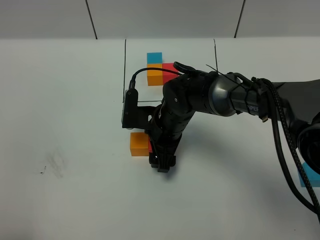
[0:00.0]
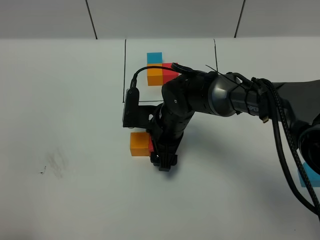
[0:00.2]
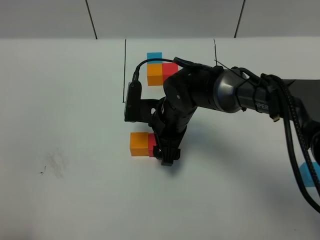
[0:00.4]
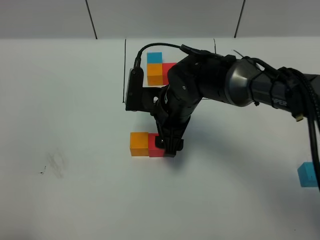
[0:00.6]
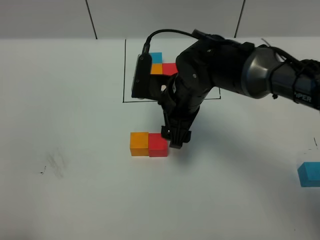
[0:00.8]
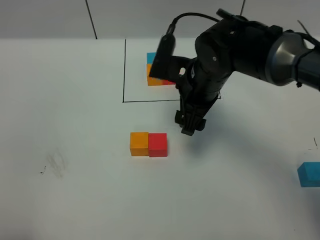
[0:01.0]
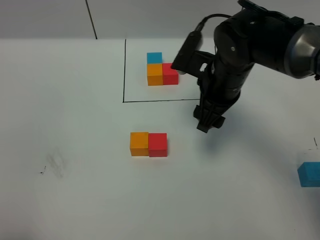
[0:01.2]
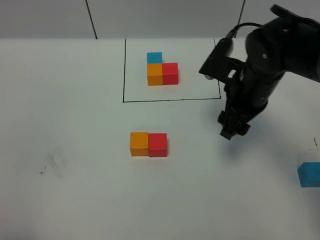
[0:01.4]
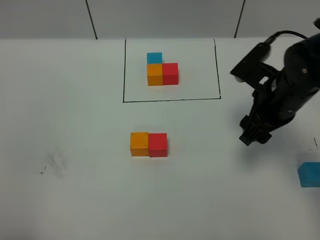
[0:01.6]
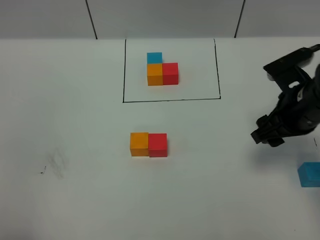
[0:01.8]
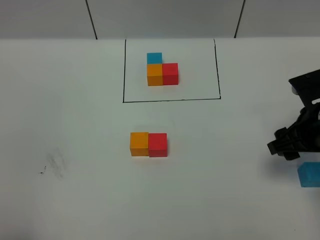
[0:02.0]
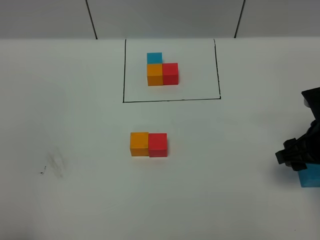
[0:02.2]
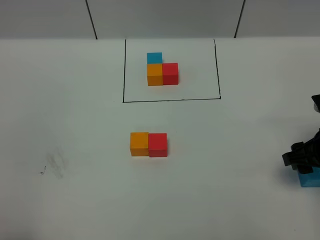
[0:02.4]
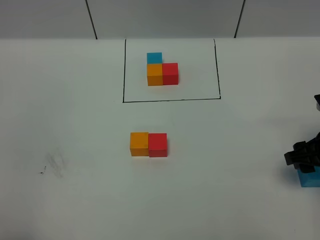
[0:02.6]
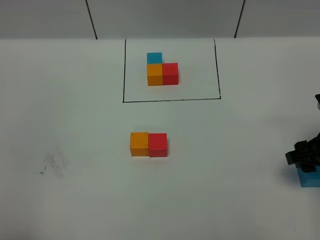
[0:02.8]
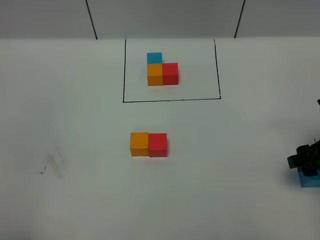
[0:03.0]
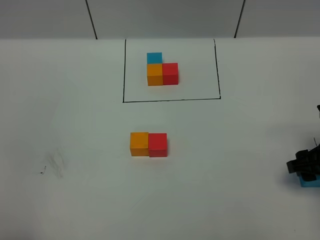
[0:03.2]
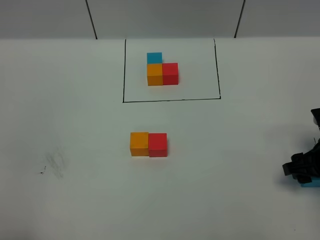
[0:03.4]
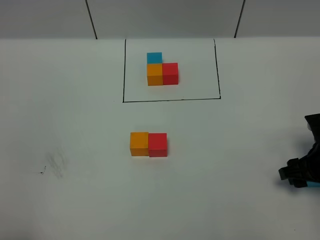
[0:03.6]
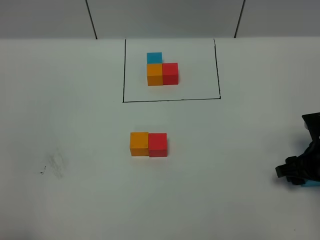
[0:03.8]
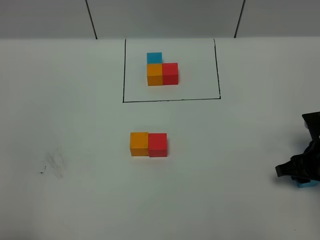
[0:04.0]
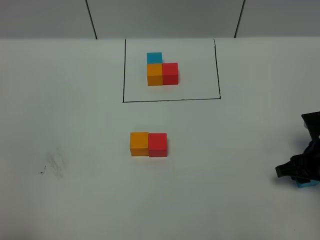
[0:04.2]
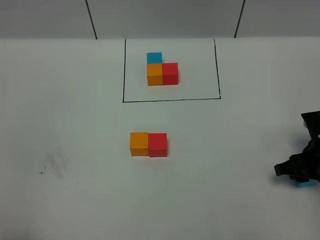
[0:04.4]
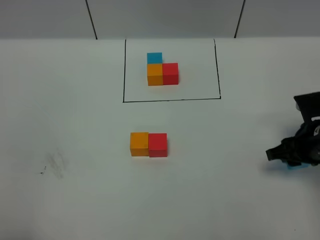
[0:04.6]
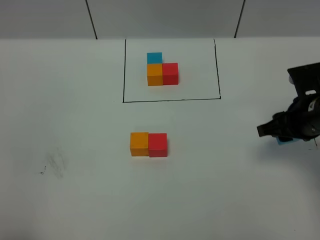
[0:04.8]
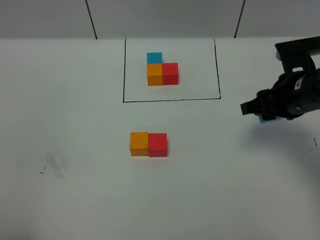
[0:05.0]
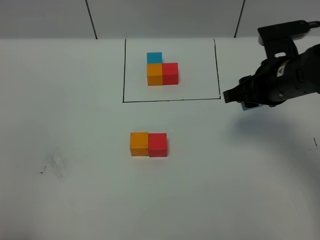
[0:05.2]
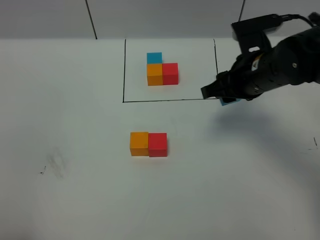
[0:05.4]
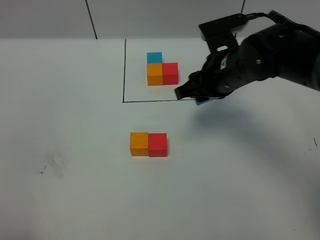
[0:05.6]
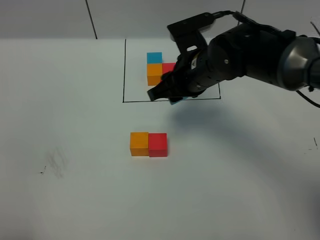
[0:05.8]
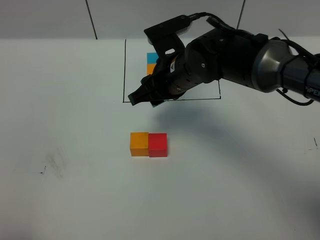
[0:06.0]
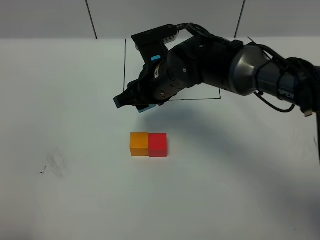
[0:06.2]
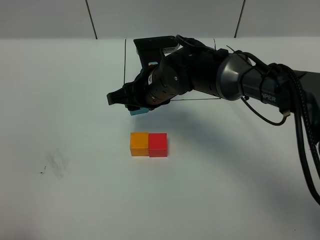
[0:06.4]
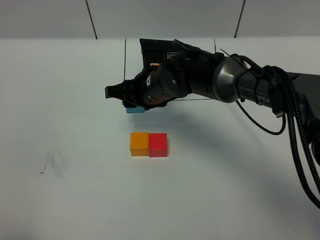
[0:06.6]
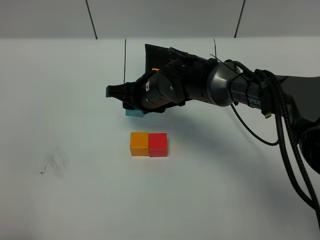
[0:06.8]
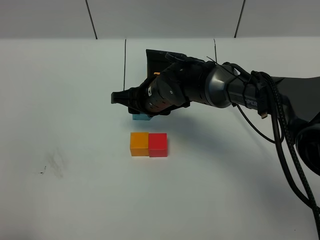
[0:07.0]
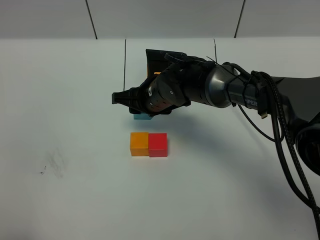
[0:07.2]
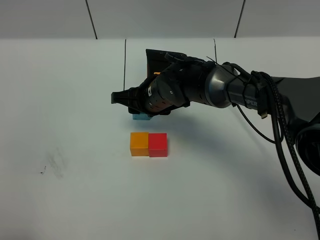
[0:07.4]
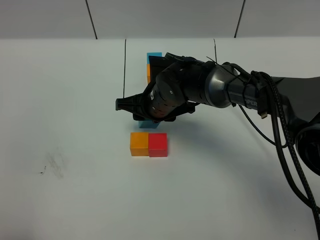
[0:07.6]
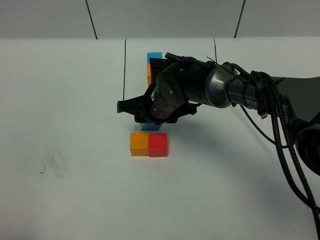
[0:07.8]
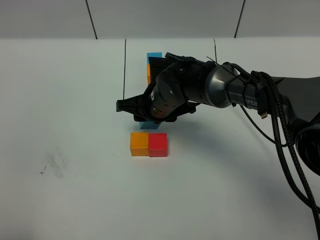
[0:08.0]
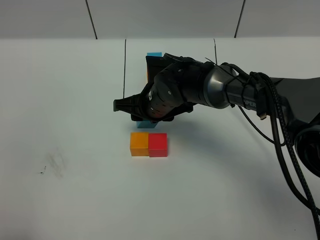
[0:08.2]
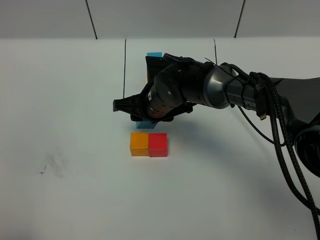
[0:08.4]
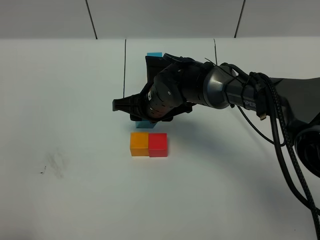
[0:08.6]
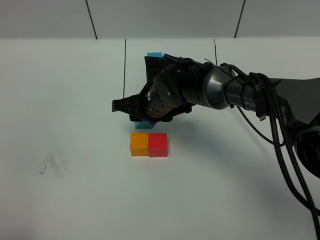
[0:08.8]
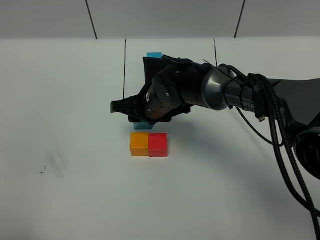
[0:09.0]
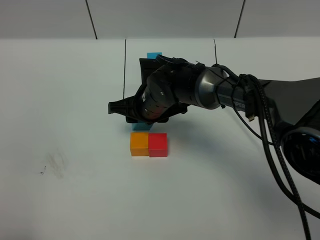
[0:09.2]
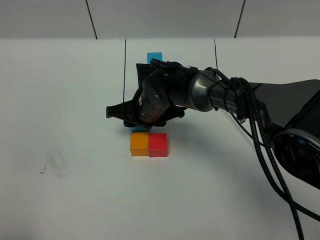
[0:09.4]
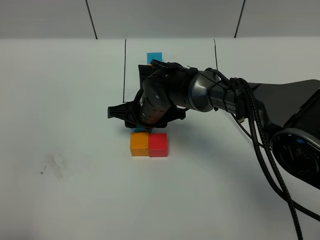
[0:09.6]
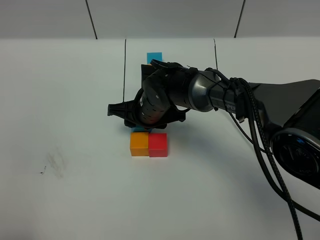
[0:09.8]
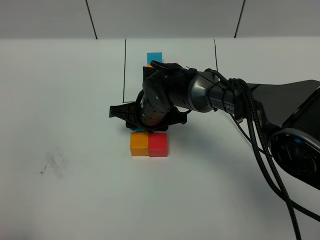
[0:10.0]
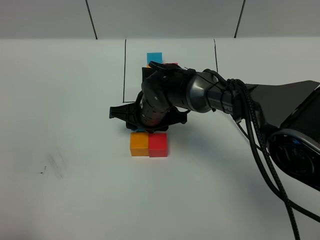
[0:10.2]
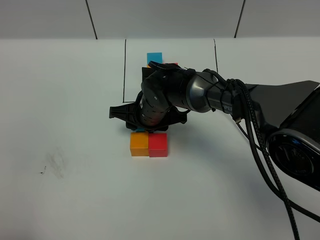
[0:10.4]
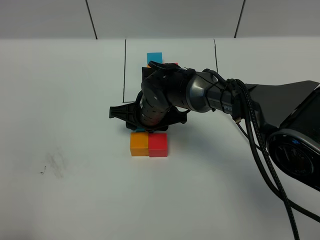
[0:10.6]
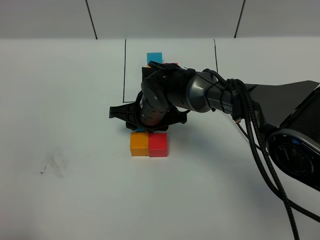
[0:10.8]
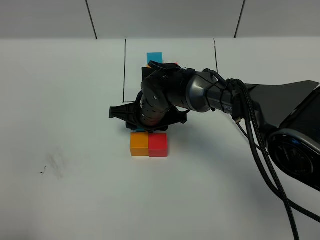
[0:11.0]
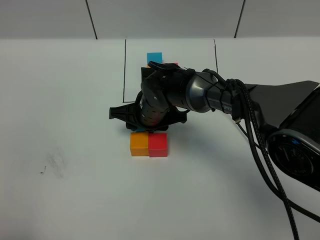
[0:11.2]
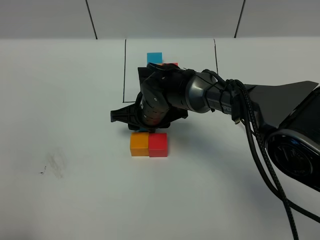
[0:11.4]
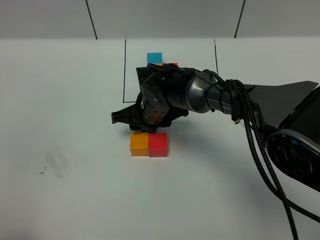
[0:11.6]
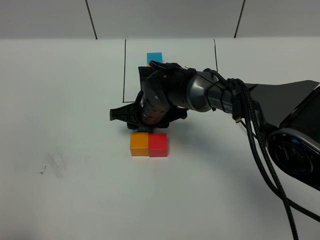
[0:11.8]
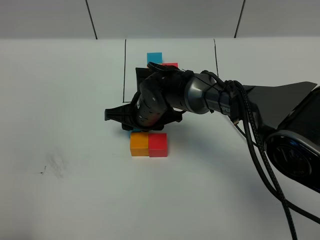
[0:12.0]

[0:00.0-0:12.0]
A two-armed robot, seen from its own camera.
Task of the whole recording: According to the building block template in front, assemble the scattered blocks together.
0:00.0 to 0:01.6: The right gripper heads to the right and upward, covering some 20 cm.
0:01.6 to 0:03.0: The right gripper is displaced to the right and backward by about 10 cm.
0:03.0 to 0:04.4: The right gripper goes approximately 5 cm downward.
0:04.4 to 0:06.0: The right gripper shifts approximately 25 cm to the left.
0:06.0 to 0:07.6: The right gripper is displaced downward by some 10 cm.
0:07.6 to 0:09.0: Neither gripper changes place.
0:09.0 to 0:12.0: There are only small adjustments of the grippers.

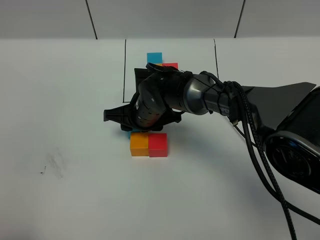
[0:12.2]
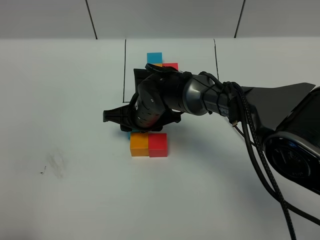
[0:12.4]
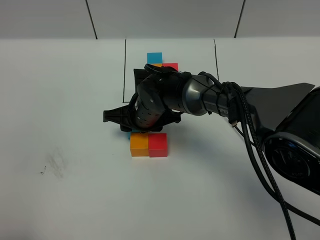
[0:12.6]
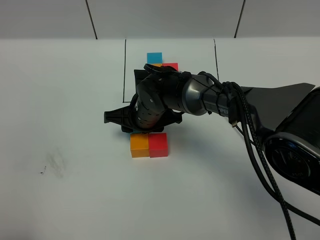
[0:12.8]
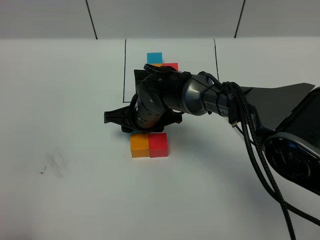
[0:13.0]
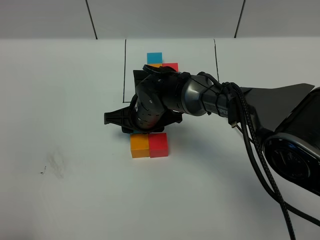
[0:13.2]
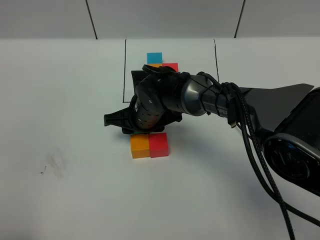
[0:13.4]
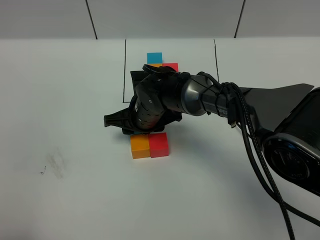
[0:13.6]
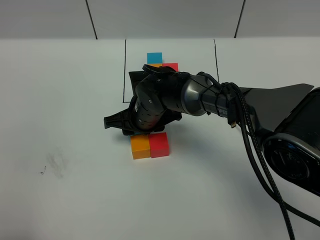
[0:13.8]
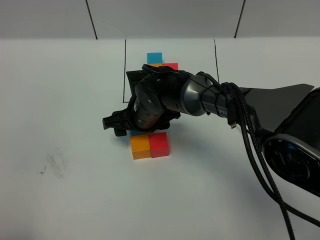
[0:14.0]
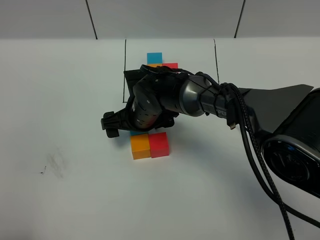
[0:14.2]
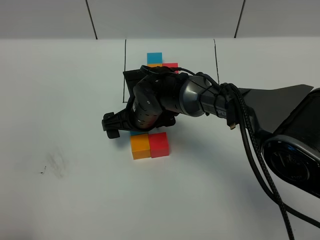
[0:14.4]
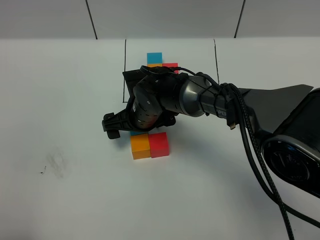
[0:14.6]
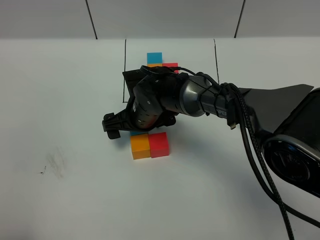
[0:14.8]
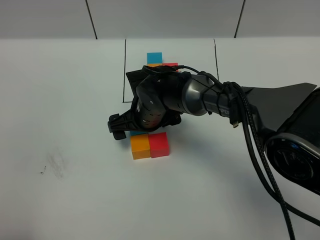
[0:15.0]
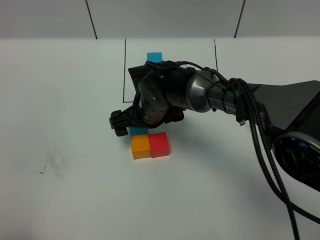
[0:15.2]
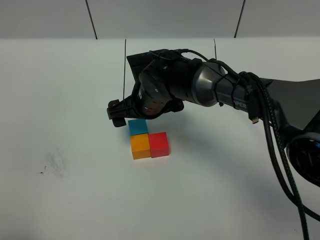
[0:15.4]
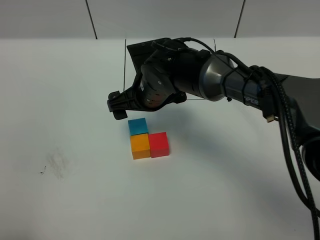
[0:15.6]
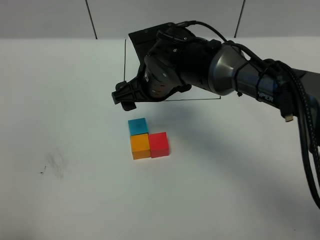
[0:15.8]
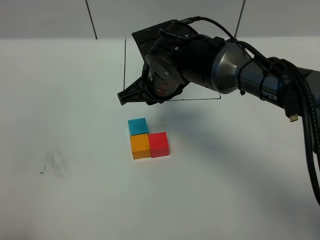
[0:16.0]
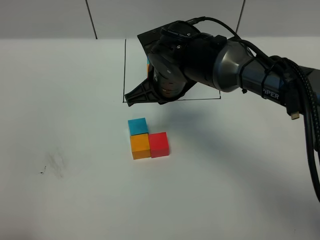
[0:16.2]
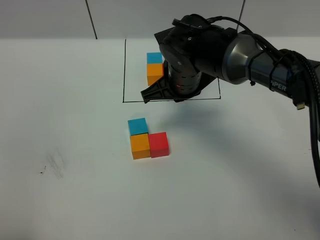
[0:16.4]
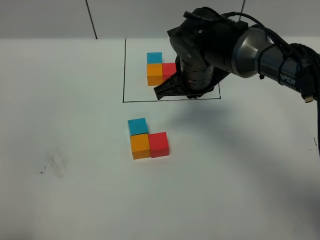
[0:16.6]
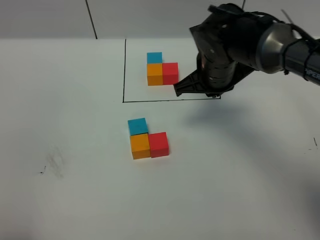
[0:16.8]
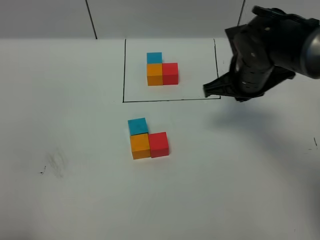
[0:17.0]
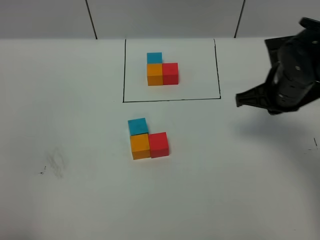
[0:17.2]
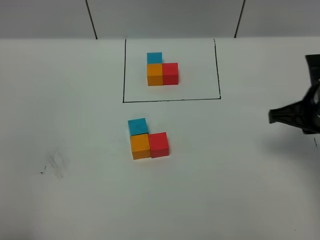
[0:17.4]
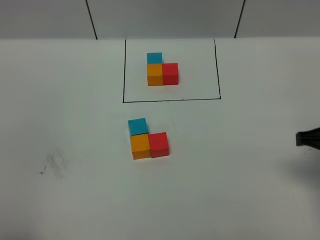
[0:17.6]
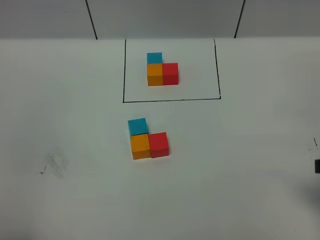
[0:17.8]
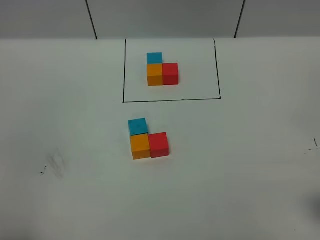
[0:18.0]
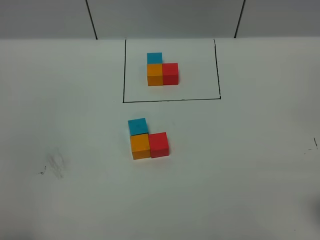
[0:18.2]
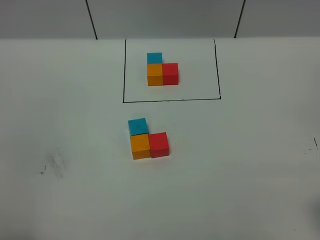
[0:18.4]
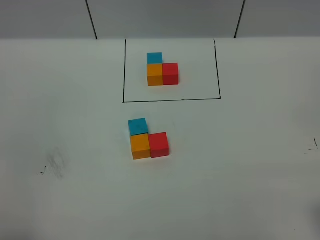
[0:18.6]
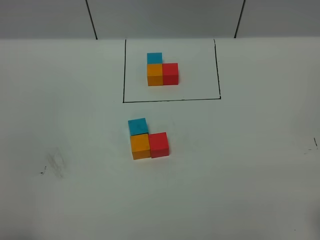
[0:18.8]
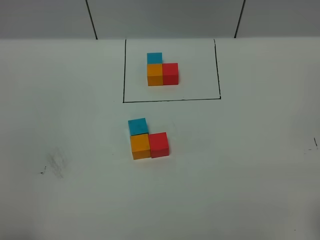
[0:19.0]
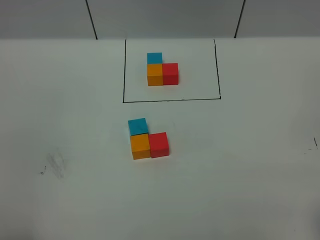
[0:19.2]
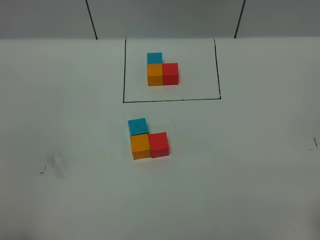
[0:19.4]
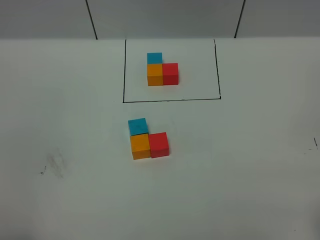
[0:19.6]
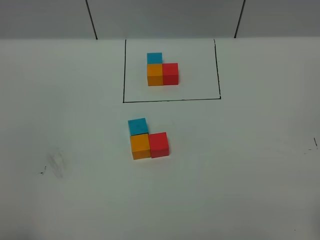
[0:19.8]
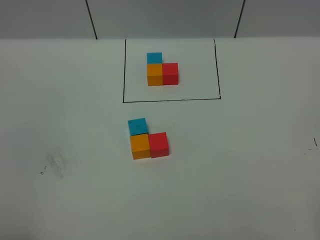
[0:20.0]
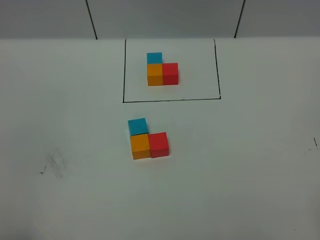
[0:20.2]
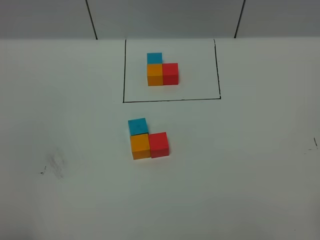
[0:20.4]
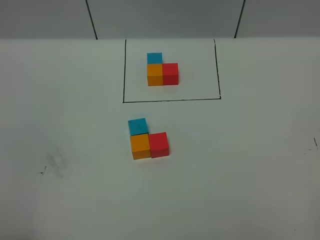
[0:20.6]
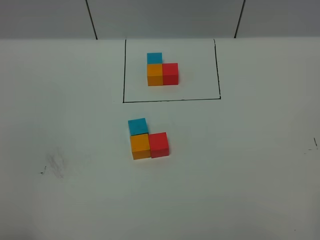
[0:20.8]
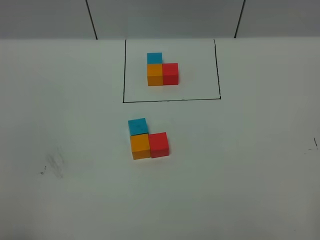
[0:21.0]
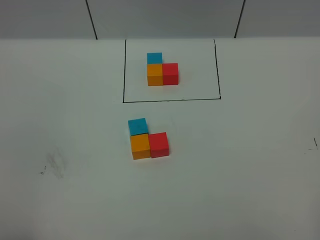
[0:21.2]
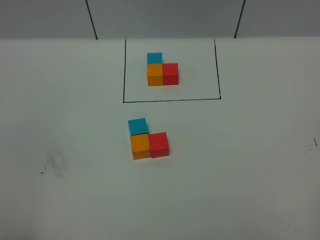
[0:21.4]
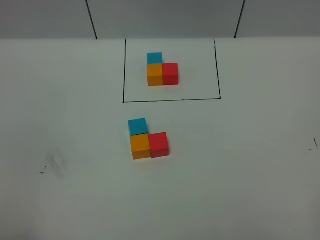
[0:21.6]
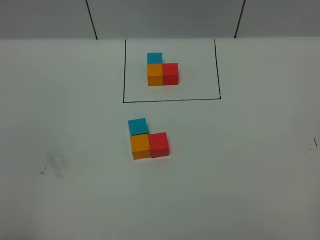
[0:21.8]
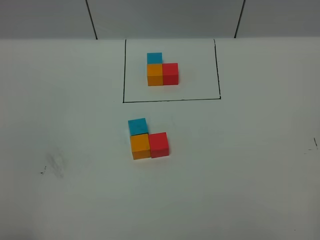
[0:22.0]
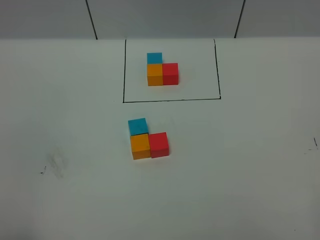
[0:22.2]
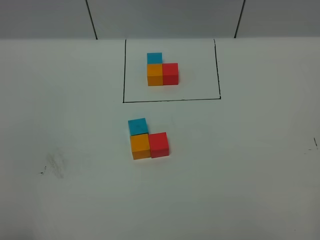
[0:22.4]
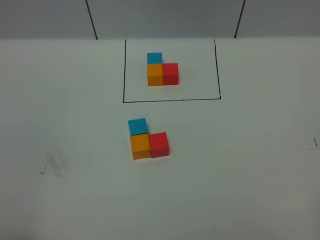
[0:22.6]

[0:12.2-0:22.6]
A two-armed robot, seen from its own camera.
Task of the whole recording: According to the building block template in front, assemble the scattered blocks together.
Step, 0:12.2 to 0:14.6: Put the blue cube on the behind of the orange cube.
0:12.2 to 0:13.6: The grippers stay close to where they were, moving slightly.
0:13.6 to 0:15.2: The right gripper opens.
0:15.2 to 0:16.6: The right gripper goes approximately 10 cm to the right and upward, and closes.
0:16.6 to 0:18.2: The right gripper travels backward and to the right by approximately 35 cm.
